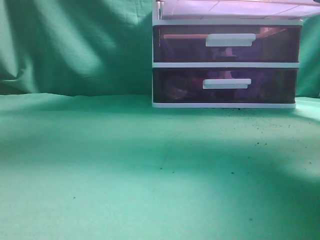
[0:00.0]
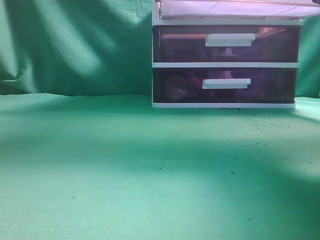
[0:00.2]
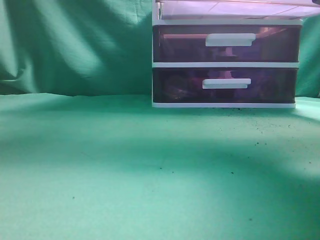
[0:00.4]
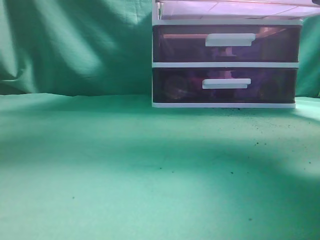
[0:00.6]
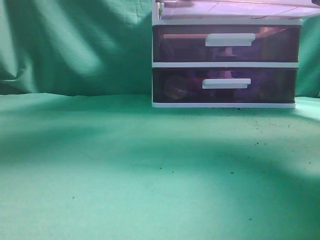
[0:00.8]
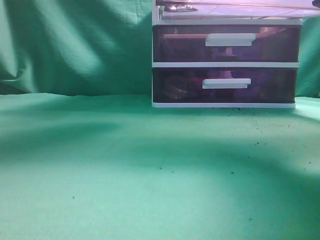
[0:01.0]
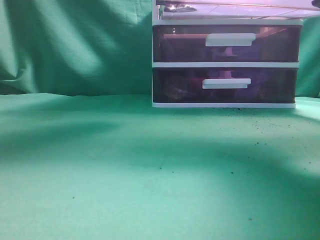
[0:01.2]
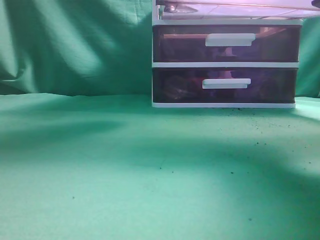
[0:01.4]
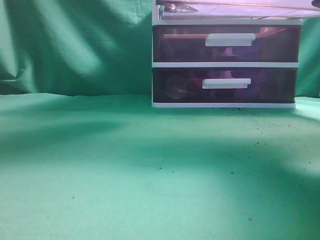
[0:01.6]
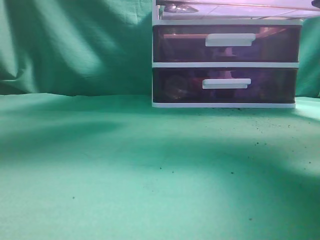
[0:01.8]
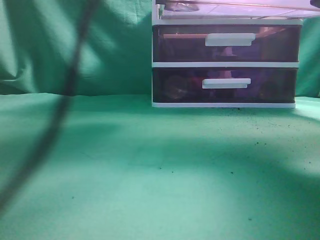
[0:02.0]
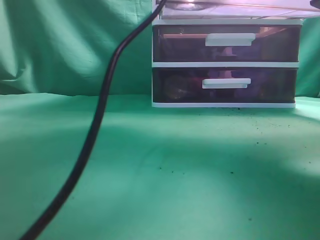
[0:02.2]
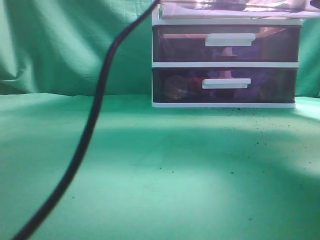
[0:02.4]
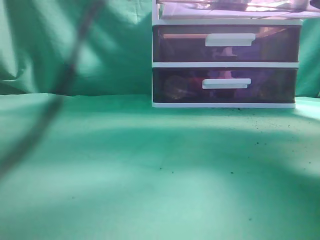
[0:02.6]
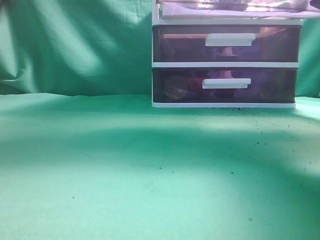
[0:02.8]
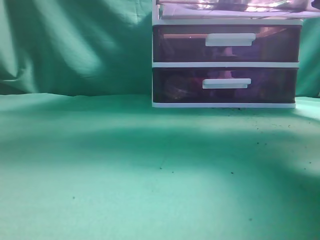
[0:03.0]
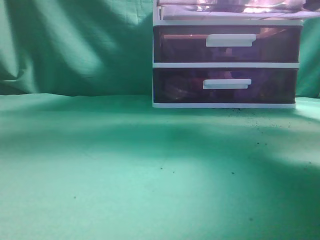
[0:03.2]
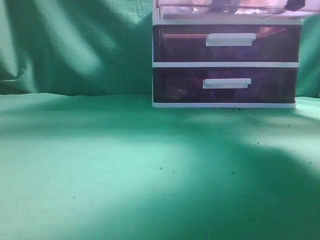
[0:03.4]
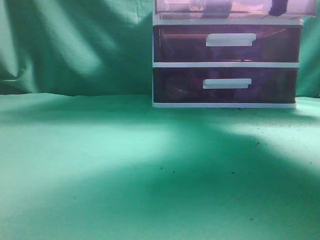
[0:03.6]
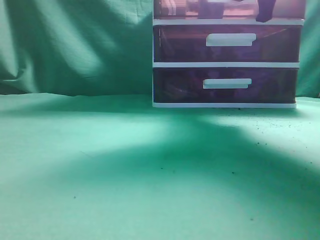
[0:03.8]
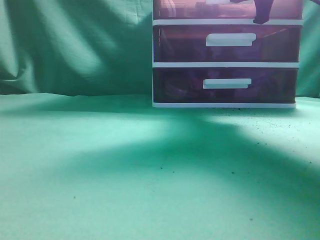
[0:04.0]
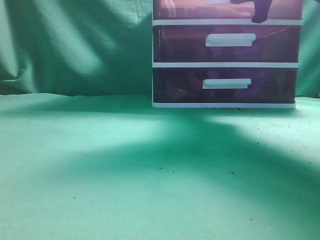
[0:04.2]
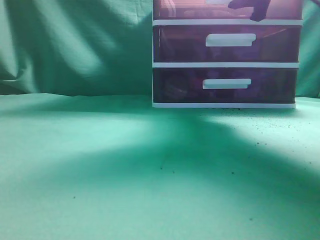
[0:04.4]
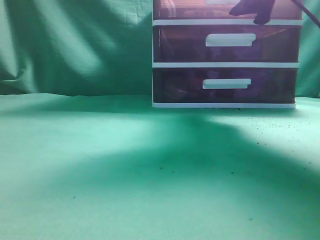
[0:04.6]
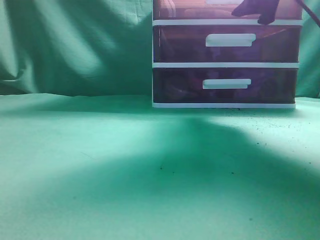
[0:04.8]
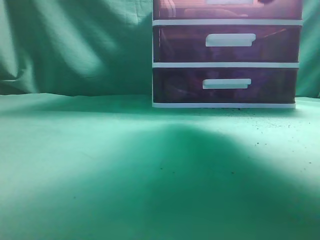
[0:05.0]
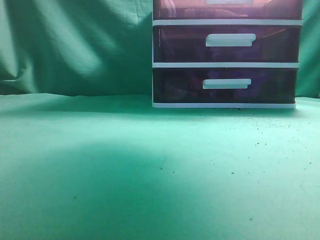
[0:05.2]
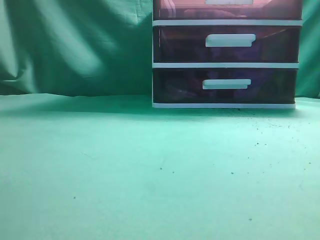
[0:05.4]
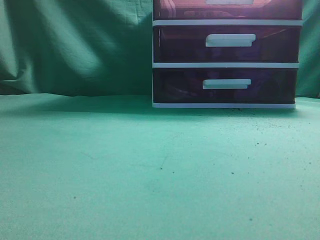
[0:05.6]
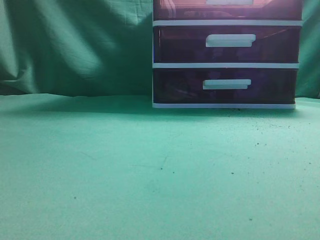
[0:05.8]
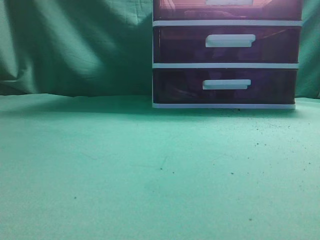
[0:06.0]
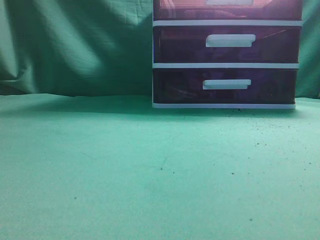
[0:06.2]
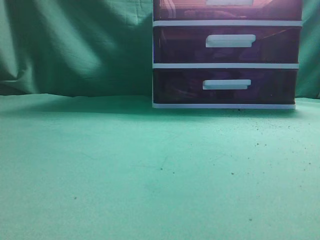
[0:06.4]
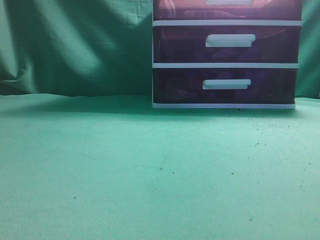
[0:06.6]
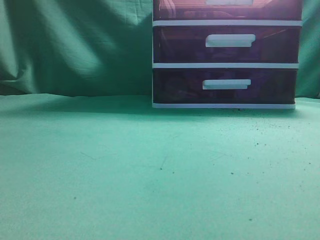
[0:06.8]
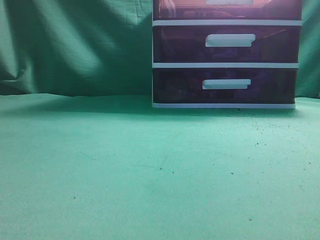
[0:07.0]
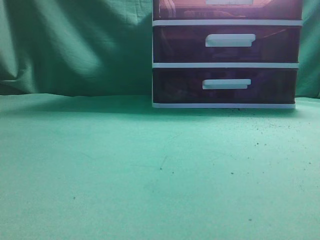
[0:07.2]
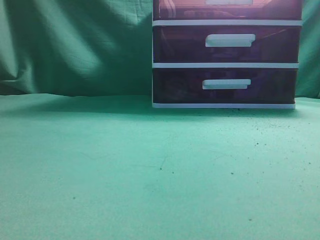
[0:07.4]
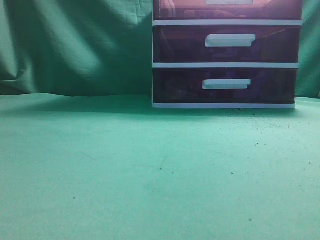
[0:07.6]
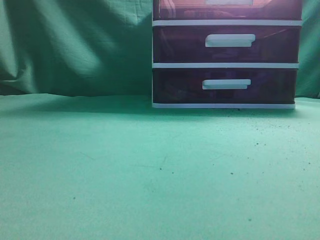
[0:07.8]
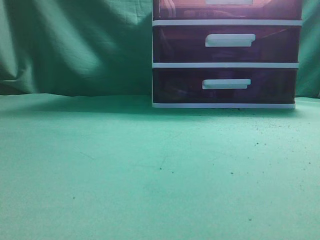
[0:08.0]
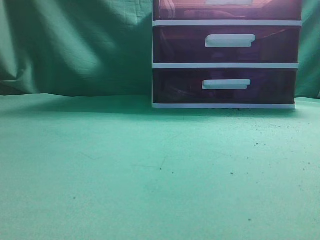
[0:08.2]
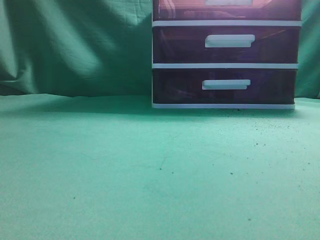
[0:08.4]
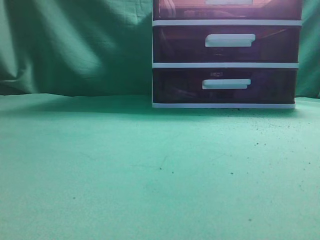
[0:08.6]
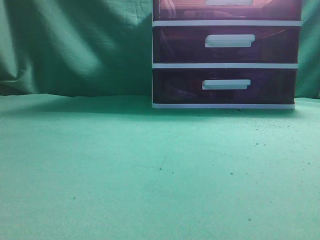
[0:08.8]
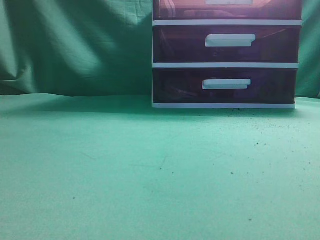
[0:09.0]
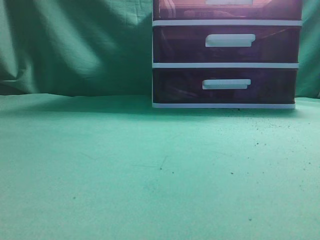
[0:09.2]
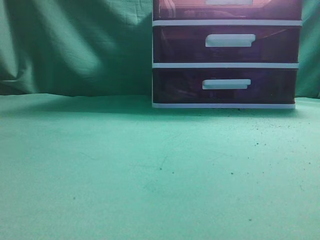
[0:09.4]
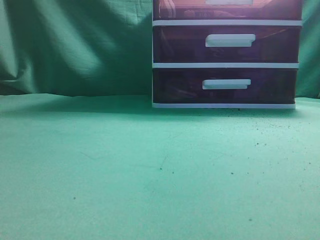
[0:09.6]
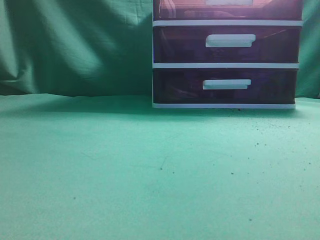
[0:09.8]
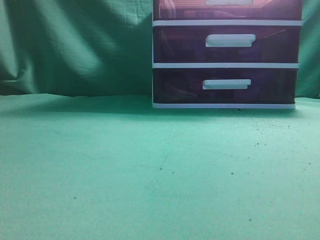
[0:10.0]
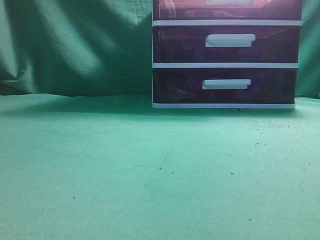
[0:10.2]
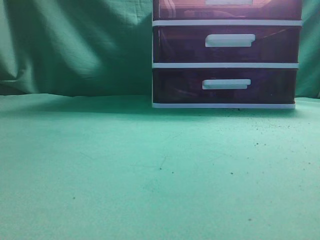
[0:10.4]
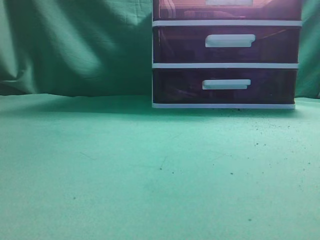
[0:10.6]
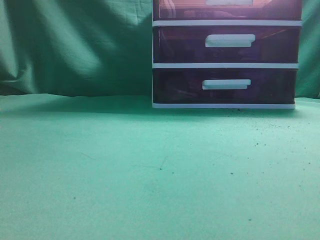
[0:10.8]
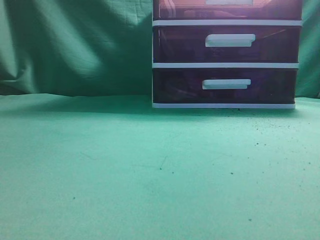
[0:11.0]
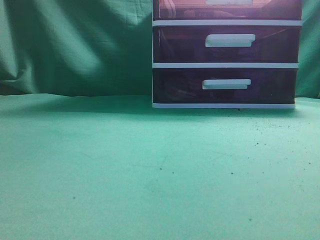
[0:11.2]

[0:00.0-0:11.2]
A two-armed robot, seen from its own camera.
Task of the whole recording: place the water bottle into the drawer.
Step, 0:00.0 to 0:02.4: Place the water bottle inside the drawer.
Step, 0:02.6 to 0:04.6: Close the drawer.
0:00.0 to 0:01.6: The left gripper heads forward and to the right, covering roughly 20 cm, and opens its fingers.
0:01.6 to 0:03.2: The left gripper is displaced backward, to the left and upward by about 15 cm, and closes.
0:03.2 to 0:04.8: The right gripper heads forward, covering roughly 10 cm, and opens. The left gripper travels backward, to the left and downward by approximately 15 cm.
0:04.8 to 0:06.4: The left gripper travels backward, to the left and downward by about 20 cm; the right gripper heads backward, covering roughly 30 cm, and closes.
0:06.4 to 0:08.0: The right gripper travels downward by approximately 15 cm.
